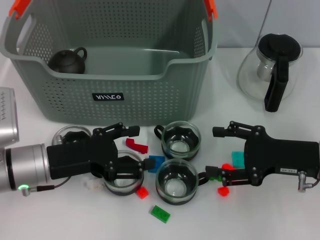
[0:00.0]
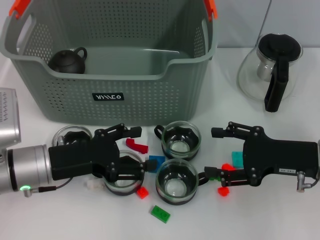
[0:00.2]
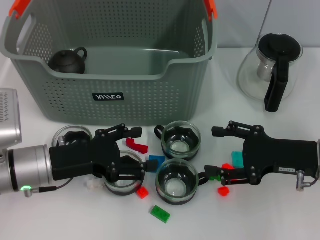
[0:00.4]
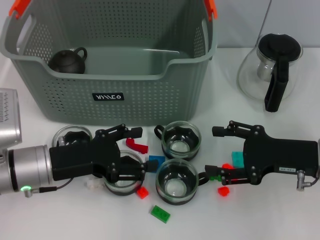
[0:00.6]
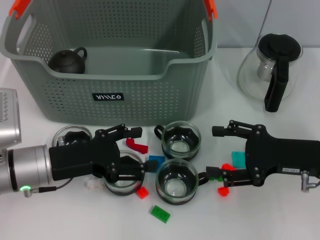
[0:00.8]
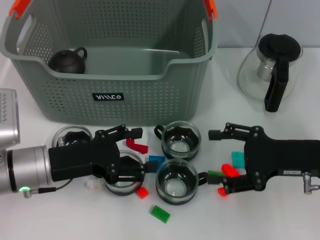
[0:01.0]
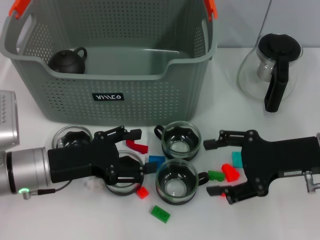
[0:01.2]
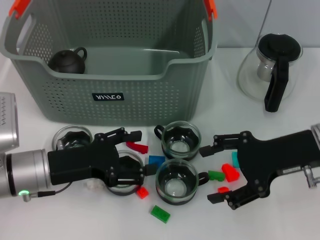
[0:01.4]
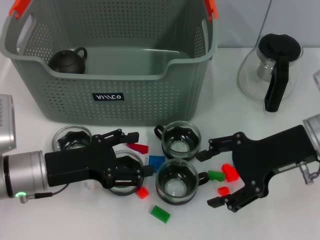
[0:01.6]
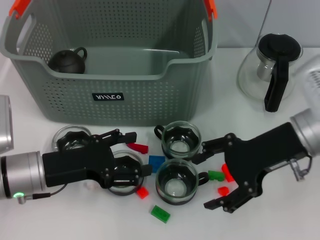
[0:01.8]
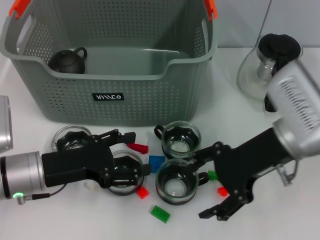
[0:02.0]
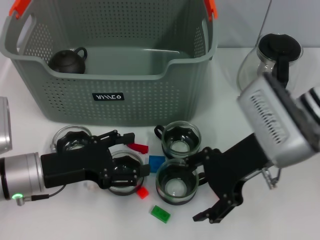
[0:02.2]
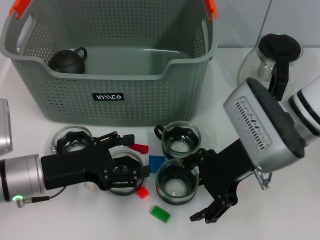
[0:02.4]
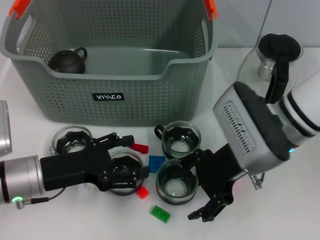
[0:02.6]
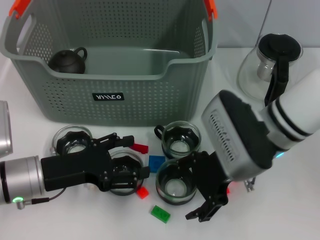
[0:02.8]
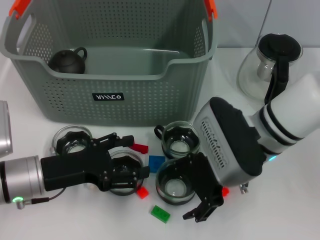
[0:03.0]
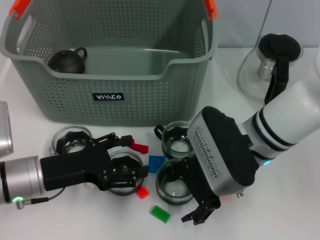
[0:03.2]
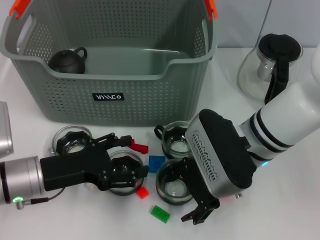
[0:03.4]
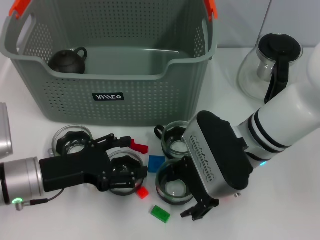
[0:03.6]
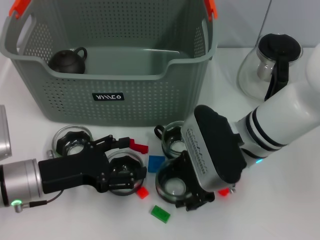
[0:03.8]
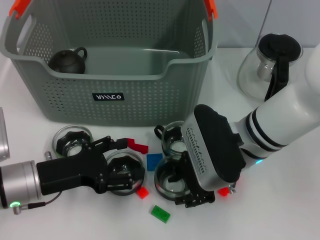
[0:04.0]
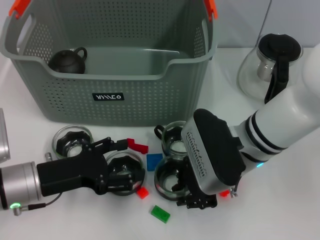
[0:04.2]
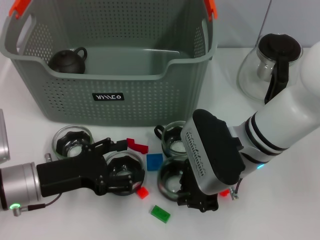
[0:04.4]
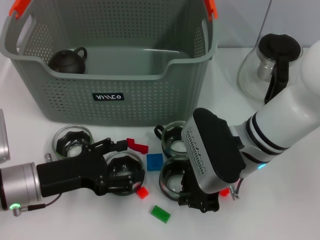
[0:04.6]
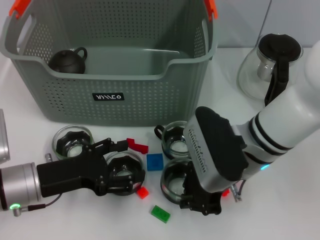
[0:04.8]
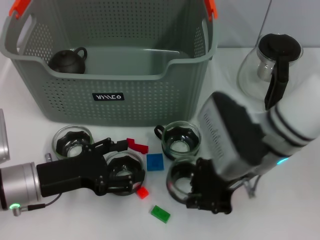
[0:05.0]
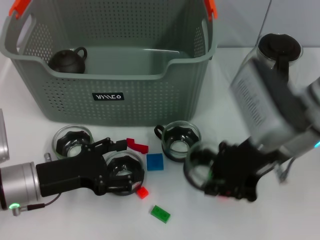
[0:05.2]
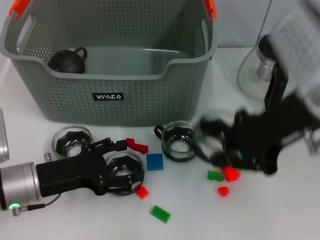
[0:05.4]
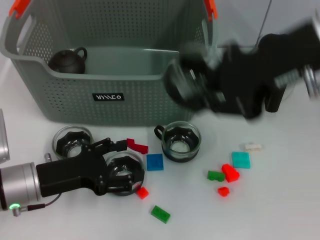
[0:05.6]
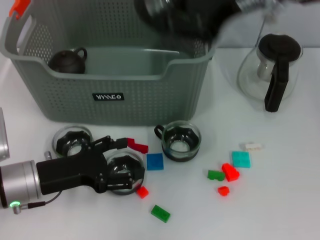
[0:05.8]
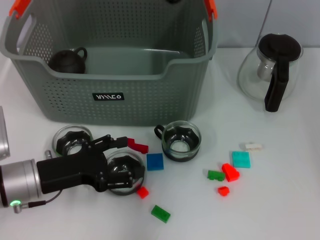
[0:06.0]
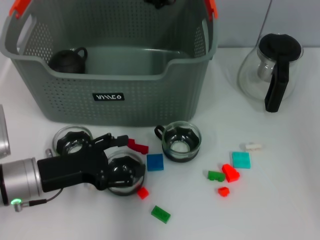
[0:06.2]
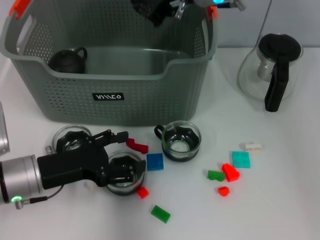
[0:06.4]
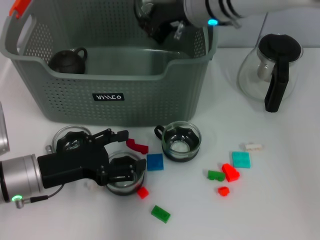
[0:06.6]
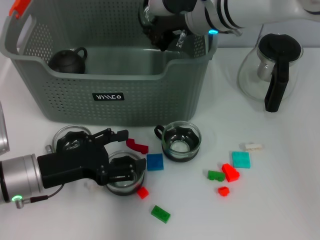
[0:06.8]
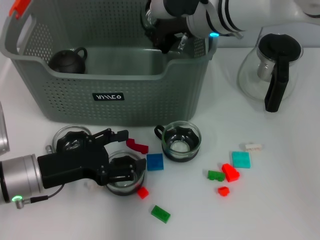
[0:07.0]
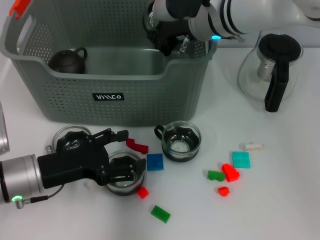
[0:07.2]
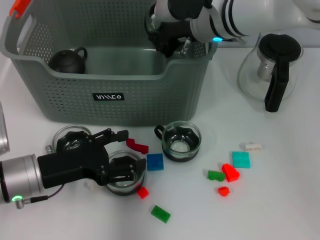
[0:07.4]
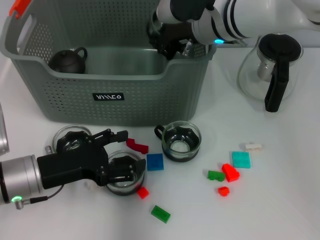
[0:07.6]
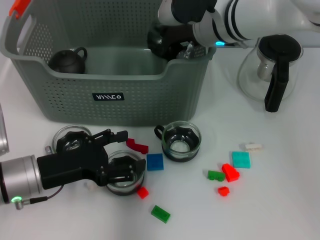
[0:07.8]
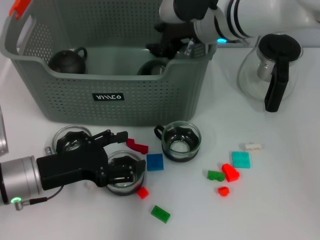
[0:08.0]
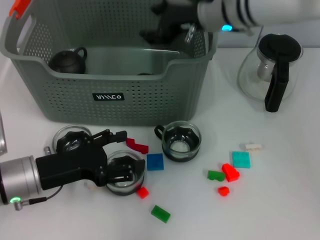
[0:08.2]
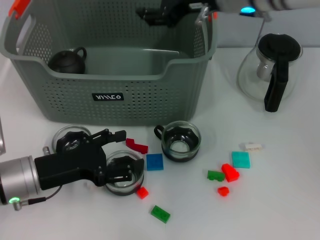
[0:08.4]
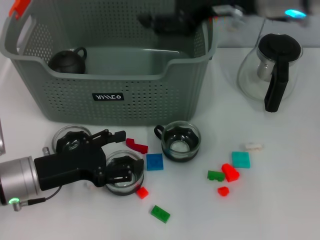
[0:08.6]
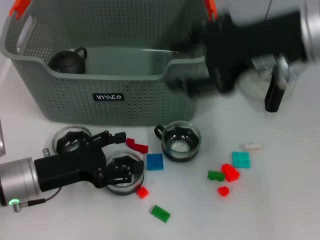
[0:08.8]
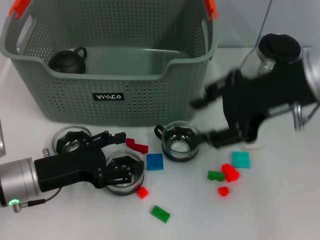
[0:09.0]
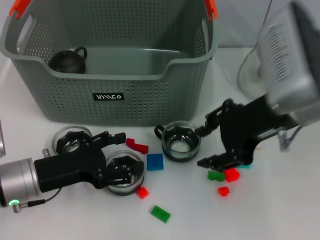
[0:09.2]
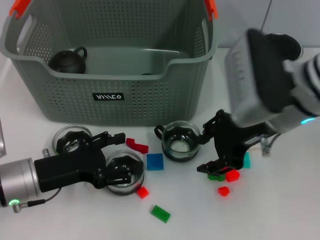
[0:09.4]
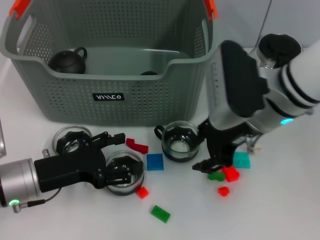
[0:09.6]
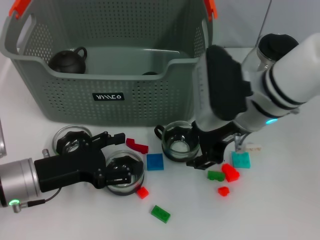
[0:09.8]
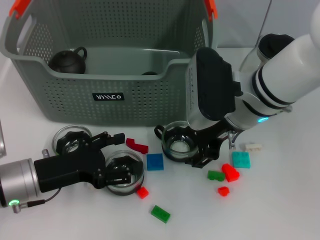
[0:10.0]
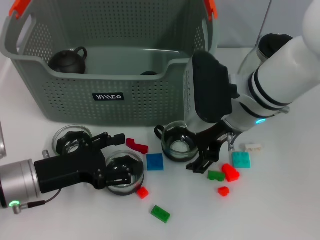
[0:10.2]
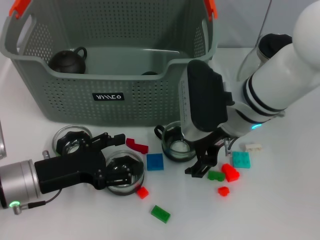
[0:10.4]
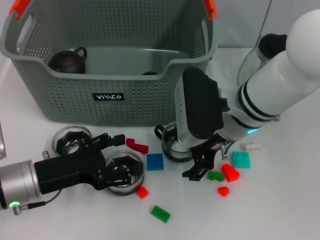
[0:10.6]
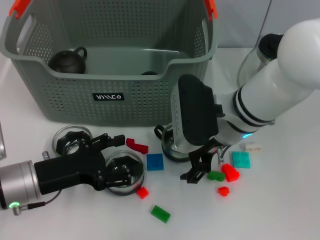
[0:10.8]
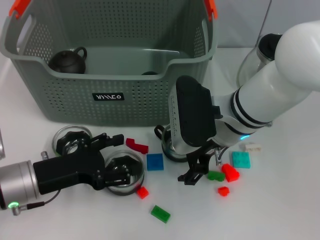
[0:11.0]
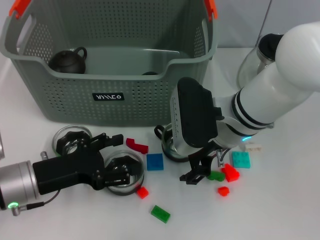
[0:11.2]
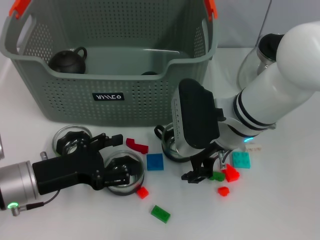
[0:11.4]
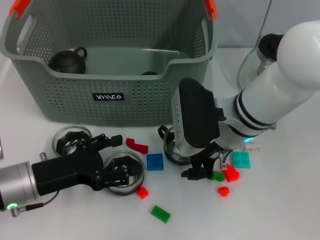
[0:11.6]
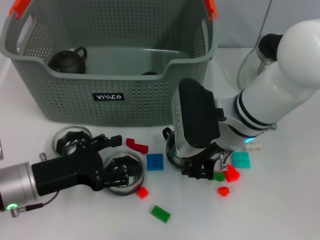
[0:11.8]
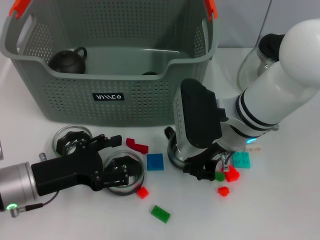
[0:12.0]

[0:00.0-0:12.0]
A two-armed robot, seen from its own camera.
Task of the whole recording: pick up the teacup on the table and place it into the storage bin, pick up the block on the table and place it into the storage bin.
Step, 0:00.0 to 0:04.4: Grasp the cup with right gripper.
Step, 0:04.8 to 0:08.4: Place the cup in the storage box with right gripper.
Step, 0:08.8 to 0:11.8: Grasp the cup with right gripper.
0:00.0 to 0:01.6: The right gripper moves upward, approximately 5 cm.
0:01.6 to 0:03.0: The right gripper moves to the left, approximately 10 cm.
0:03.0 to 0:04.4: The right gripper closes up.
0:04.4 to 0:06.0: The right gripper heads upward and forward, covering approximately 25 cm.
0:06.0 to 0:07.6: The right gripper is displaced downward by some 15 cm.
0:07.6 to 0:09.0: The right gripper moves backward, to the right and upward, some 20 cm, and opens up.
0:09.0 to 0:10.4: The right gripper is displaced downward and to the left by approximately 15 cm.
0:10.4 to 0:12.0: The right gripper closes.

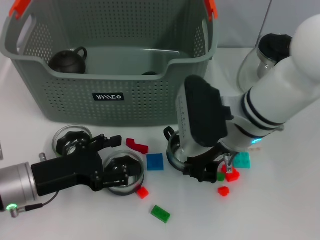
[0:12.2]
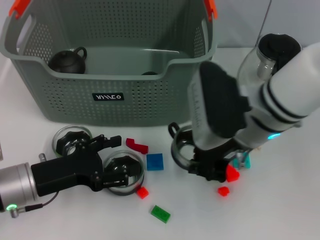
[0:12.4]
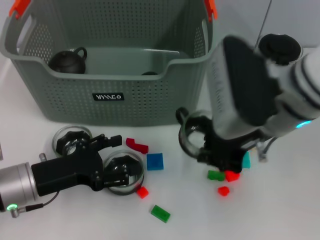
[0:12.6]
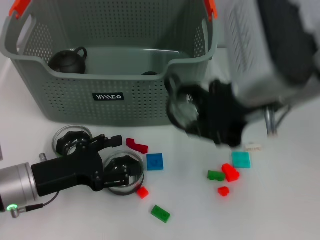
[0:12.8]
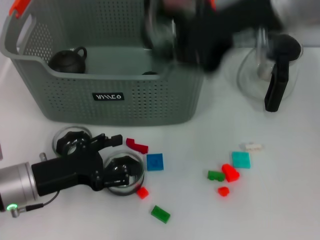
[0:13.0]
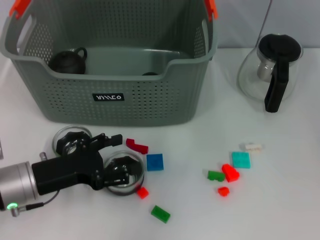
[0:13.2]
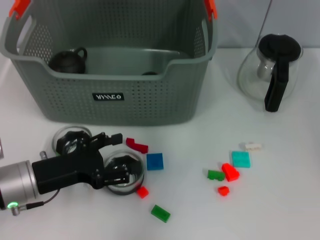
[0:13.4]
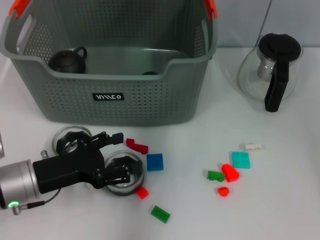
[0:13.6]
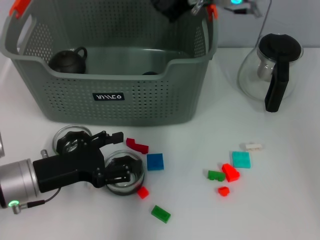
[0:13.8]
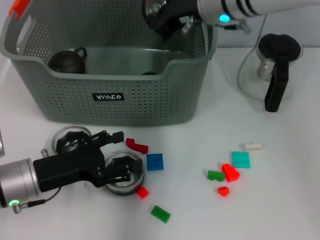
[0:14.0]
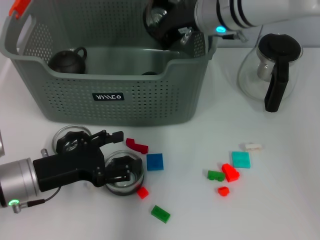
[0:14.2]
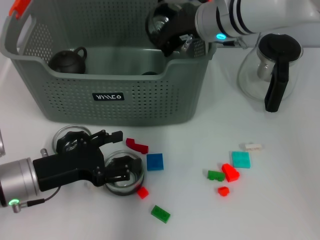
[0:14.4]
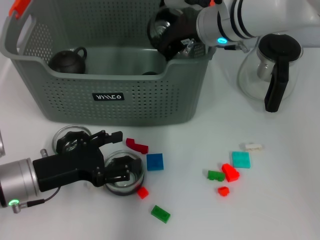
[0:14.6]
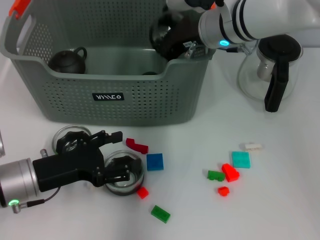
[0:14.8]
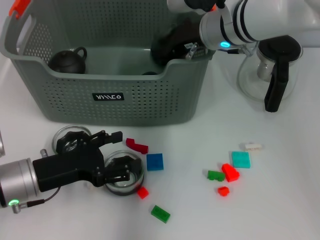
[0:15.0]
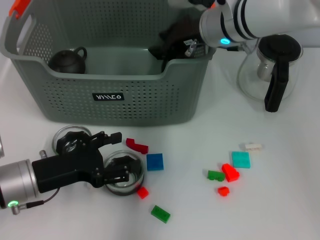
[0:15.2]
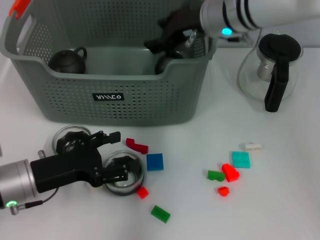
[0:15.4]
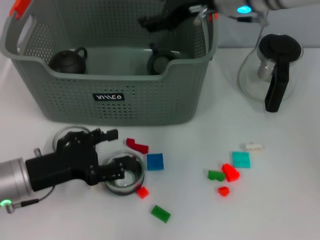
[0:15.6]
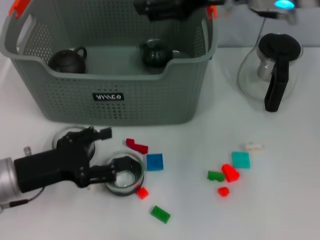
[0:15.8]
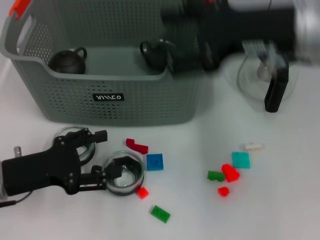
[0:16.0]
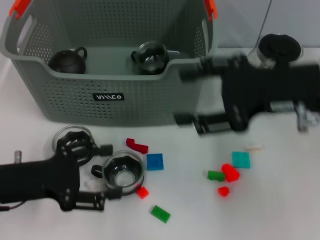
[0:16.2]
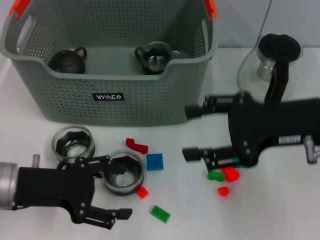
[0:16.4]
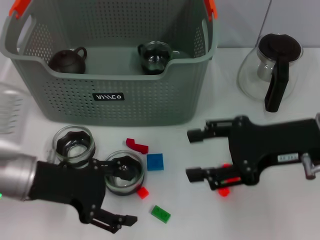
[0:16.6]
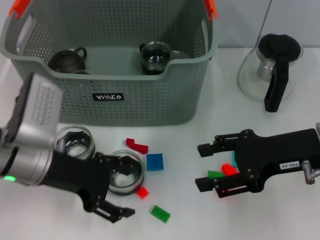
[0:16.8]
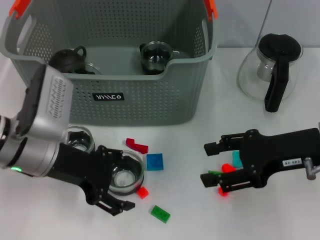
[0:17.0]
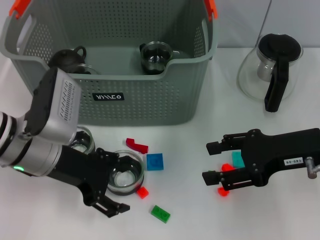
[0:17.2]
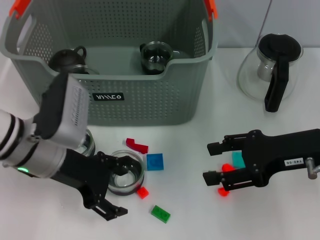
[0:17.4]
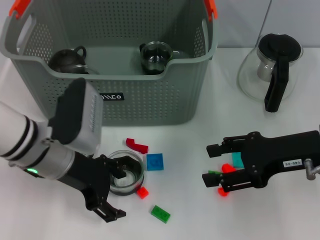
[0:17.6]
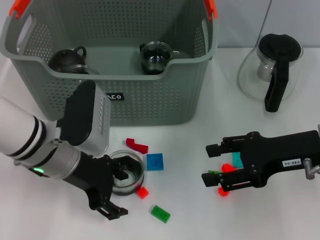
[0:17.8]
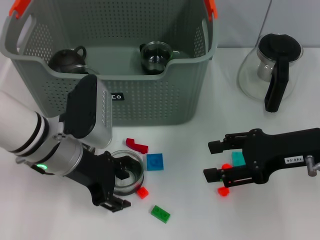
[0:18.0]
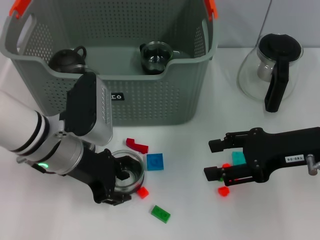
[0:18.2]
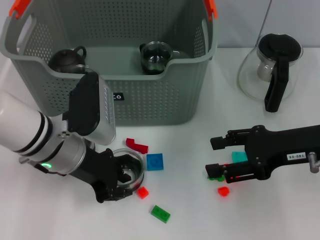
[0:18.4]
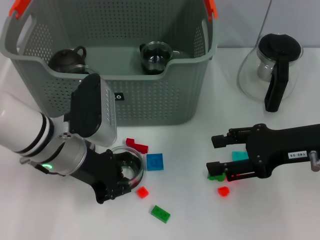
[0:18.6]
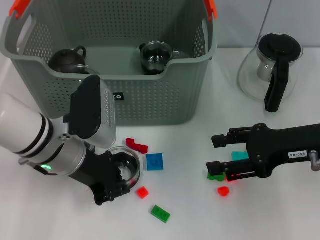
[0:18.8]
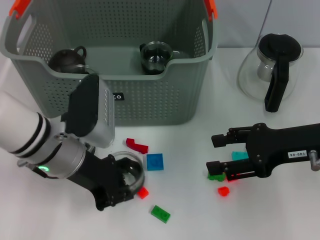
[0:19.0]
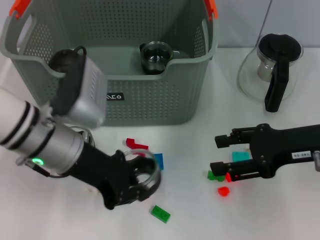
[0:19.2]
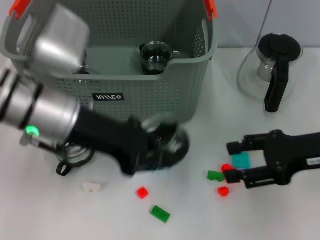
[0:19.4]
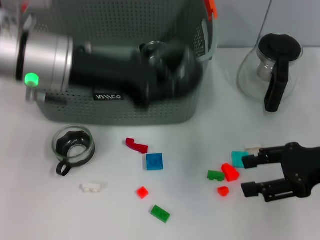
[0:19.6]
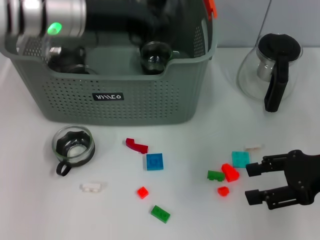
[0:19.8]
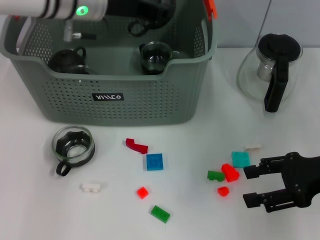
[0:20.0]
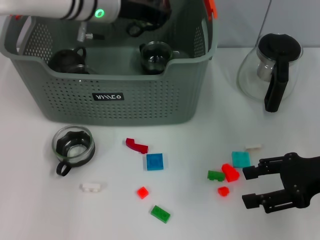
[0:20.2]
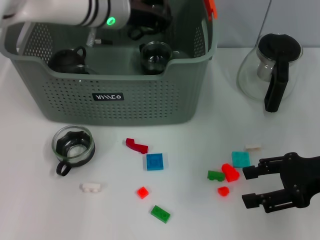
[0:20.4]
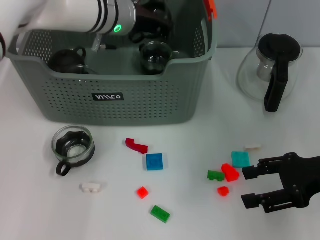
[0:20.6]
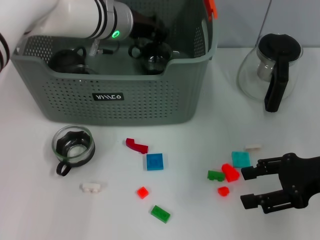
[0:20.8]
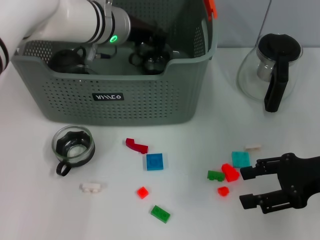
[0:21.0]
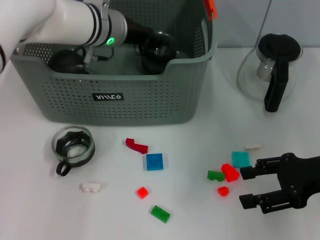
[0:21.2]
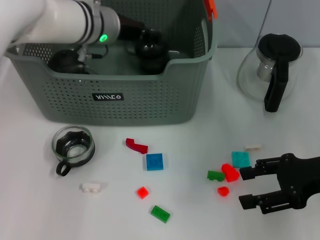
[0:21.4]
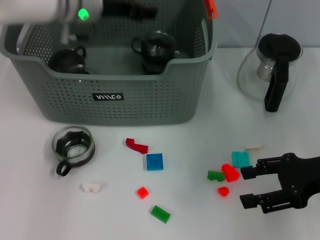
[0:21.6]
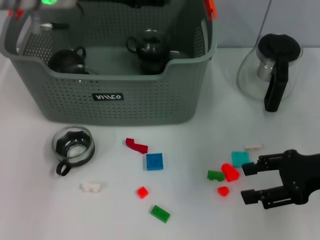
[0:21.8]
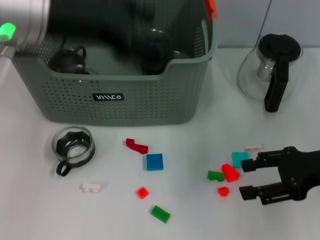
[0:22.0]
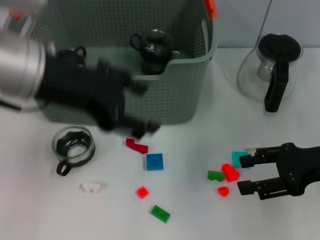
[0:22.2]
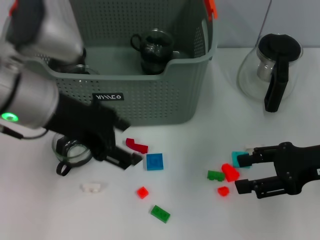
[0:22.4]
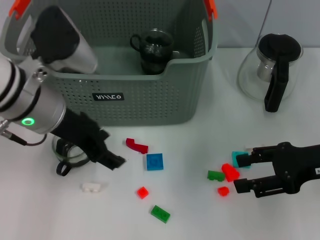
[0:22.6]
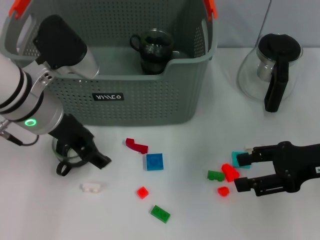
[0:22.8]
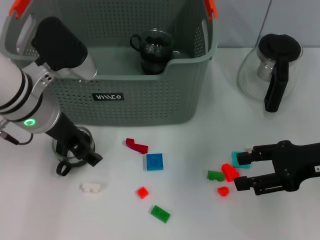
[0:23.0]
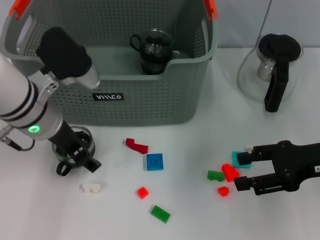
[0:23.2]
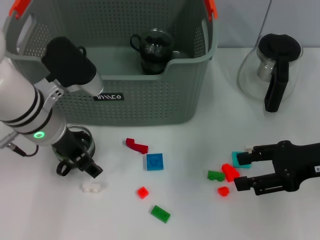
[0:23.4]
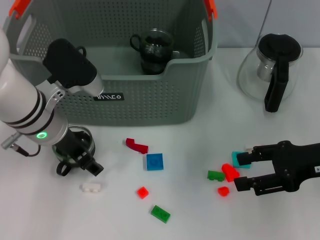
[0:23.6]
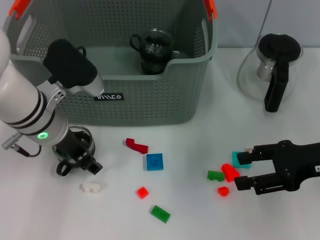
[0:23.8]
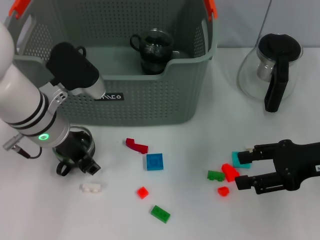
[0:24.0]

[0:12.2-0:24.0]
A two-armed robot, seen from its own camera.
Task of the whole recording: pick up the teacup on the table and place it into the storage bin, pick up the block on the table and place it into the storage bin.
Step, 0:12.2 to 0:15.8: Place the cup in the storage box with right gripper.
Step, 0:16.2 to 0:18.4: Grasp the cup with left gripper.
Step, 0:18.6 to 0:21.6: Place the cup in the storage box with left gripper.
0:12.2 to 0:13.6: The right gripper goes some 20 cm forward and upward.
0:13.6 to 0:15.2: The right gripper is displaced downward by approximately 10 cm.
0:15.2 to 0:16.6: The right gripper shifts roughly 20 cm backward and to the right, and opens. Meanwhile the left gripper shifts approximately 5 cm upward.
0:16.6 to 0:18.2: The left gripper travels to the right by approximately 5 cm.
0:18.2 to 0:19.6: The left gripper moves upward, some 10 cm, and closes up.
0:19.6 to 0:21.0: The left gripper moves forward, to the right and downward, roughly 15 cm.
0:21.0 to 0:22.6: The left gripper travels backward and to the left by roughly 15 cm, and opens.
0:22.6 to 0:24.0: The left gripper travels downward by some 5 cm.
